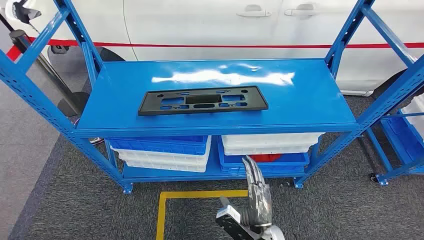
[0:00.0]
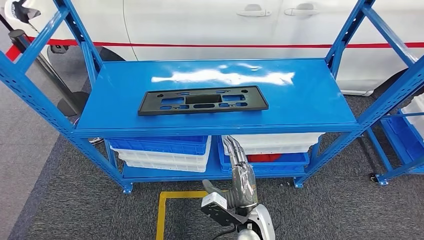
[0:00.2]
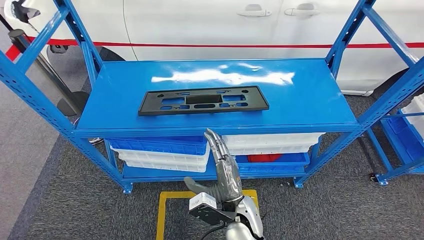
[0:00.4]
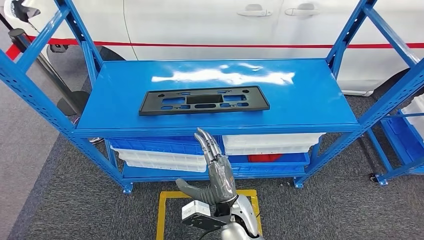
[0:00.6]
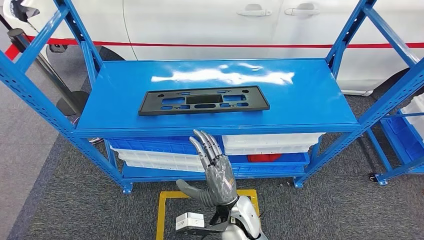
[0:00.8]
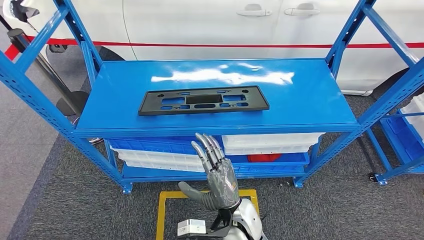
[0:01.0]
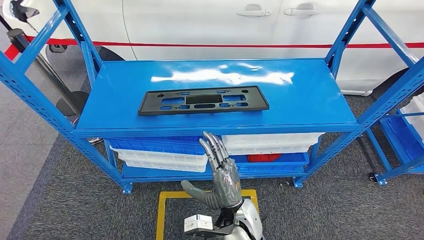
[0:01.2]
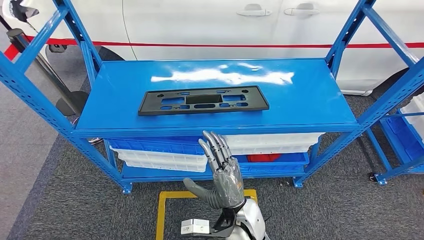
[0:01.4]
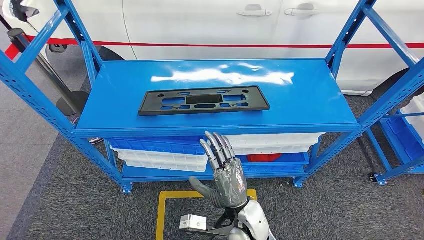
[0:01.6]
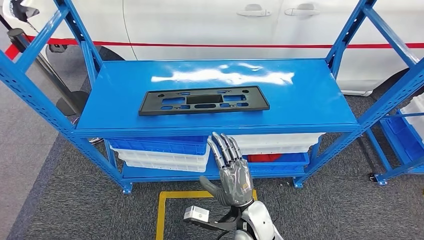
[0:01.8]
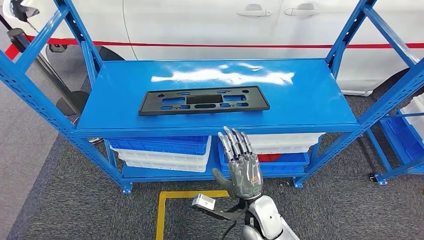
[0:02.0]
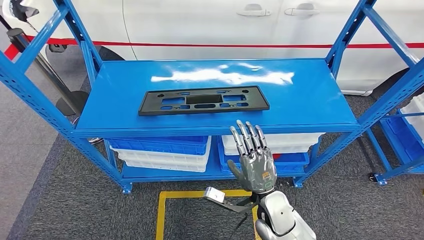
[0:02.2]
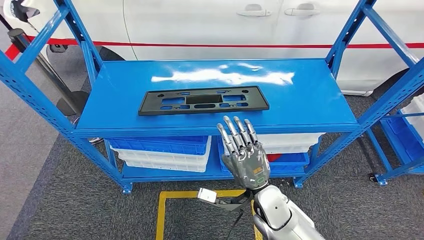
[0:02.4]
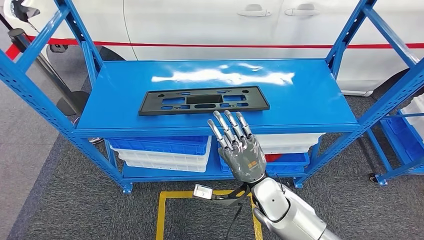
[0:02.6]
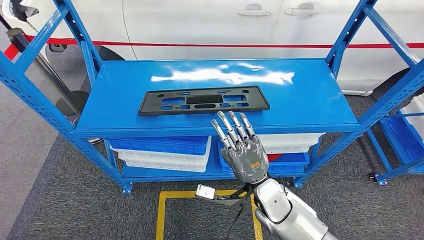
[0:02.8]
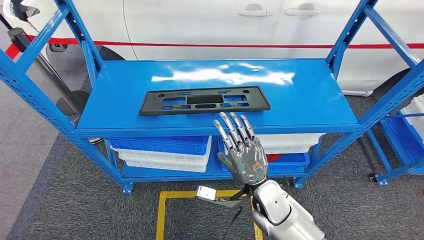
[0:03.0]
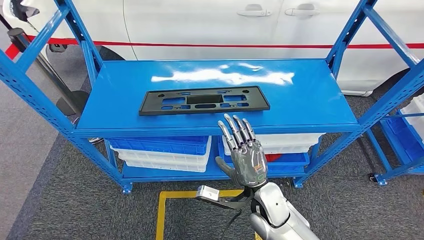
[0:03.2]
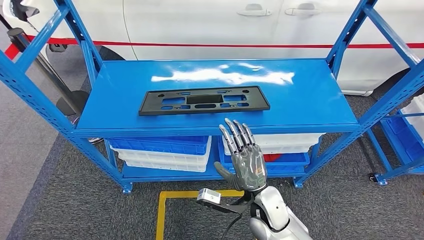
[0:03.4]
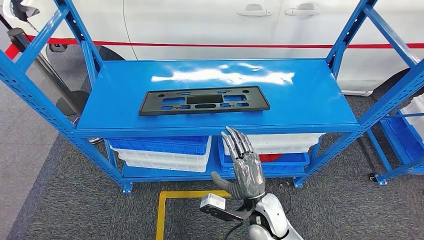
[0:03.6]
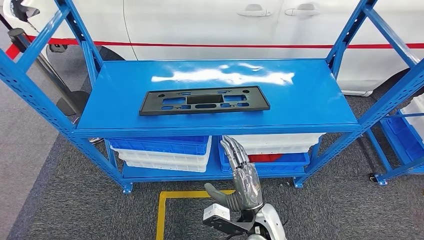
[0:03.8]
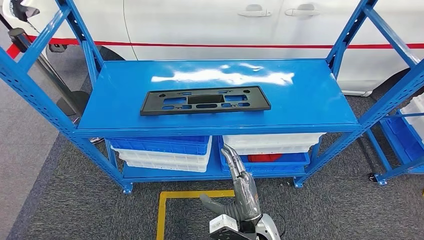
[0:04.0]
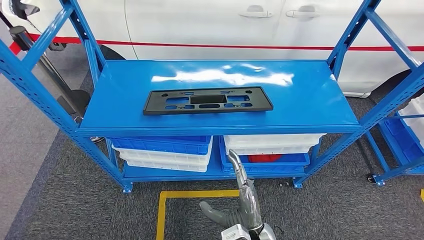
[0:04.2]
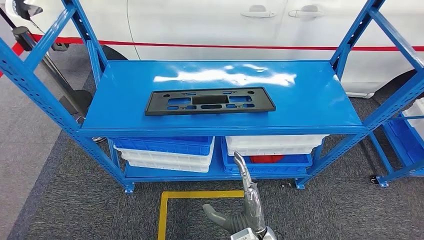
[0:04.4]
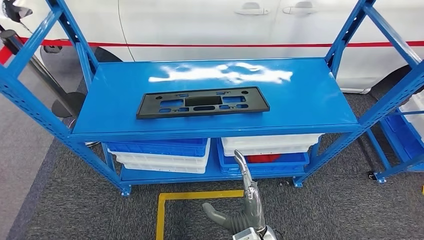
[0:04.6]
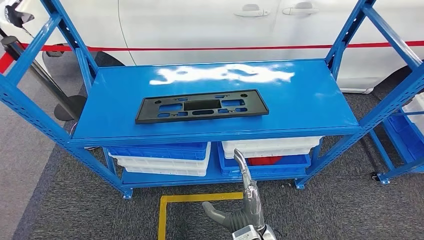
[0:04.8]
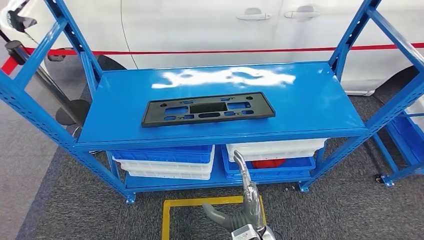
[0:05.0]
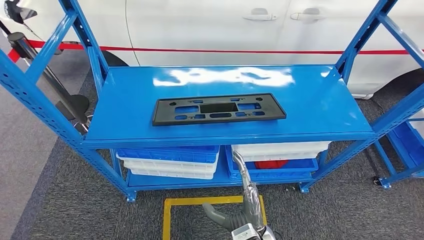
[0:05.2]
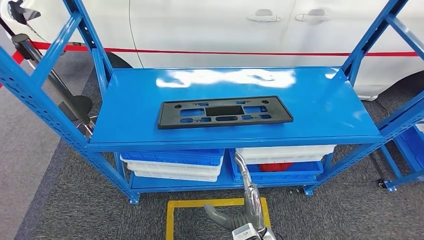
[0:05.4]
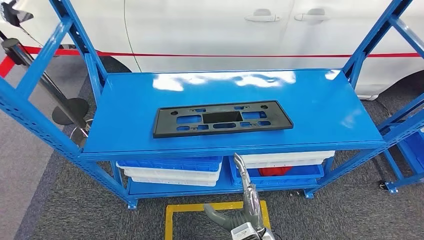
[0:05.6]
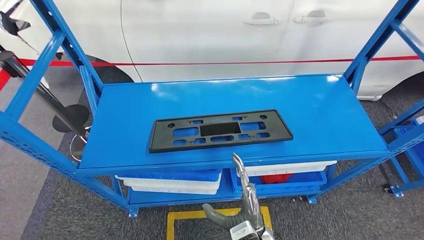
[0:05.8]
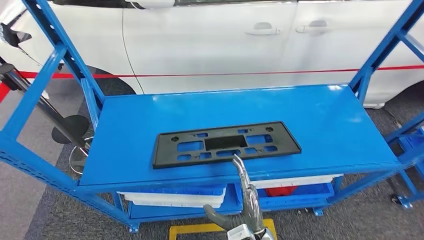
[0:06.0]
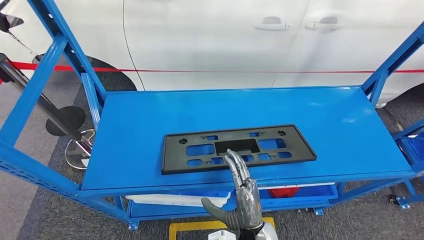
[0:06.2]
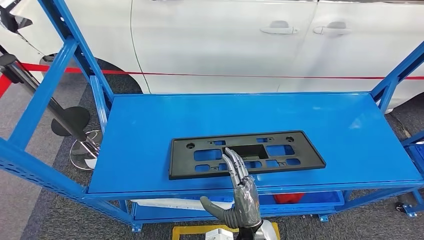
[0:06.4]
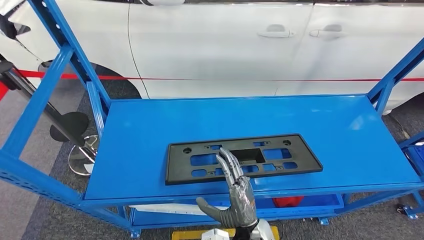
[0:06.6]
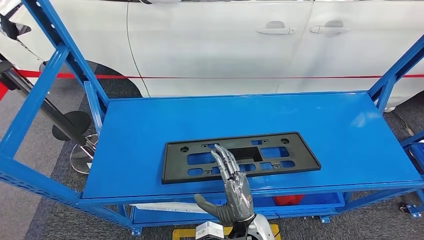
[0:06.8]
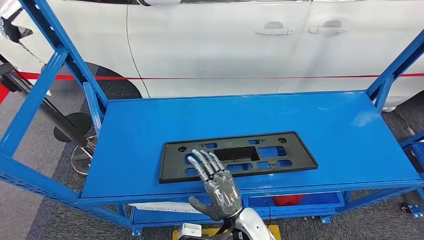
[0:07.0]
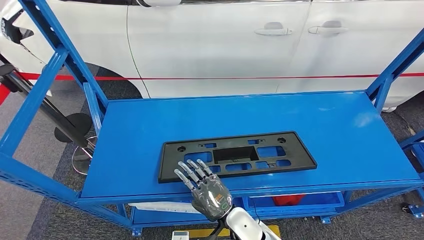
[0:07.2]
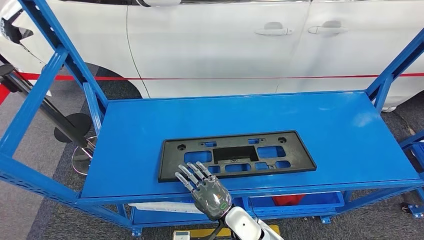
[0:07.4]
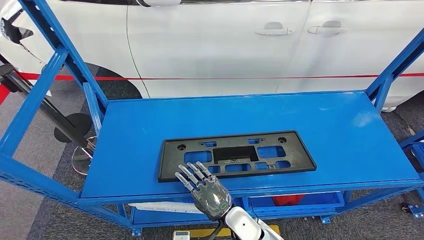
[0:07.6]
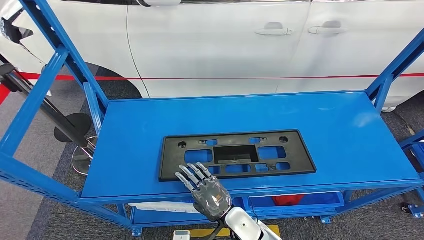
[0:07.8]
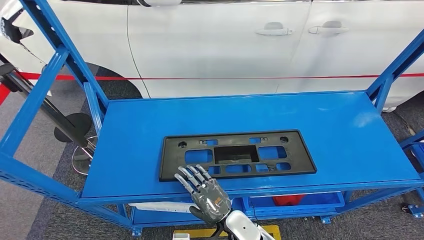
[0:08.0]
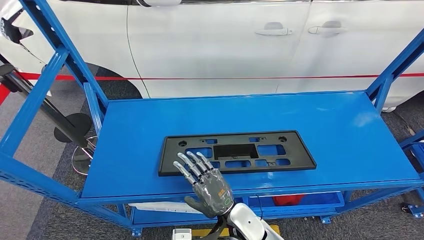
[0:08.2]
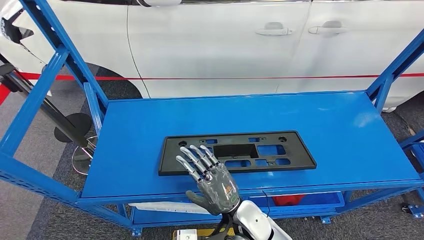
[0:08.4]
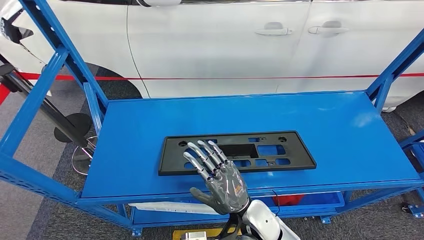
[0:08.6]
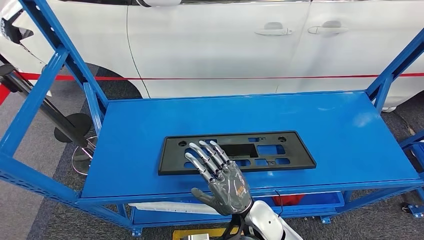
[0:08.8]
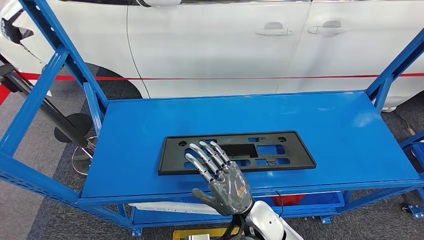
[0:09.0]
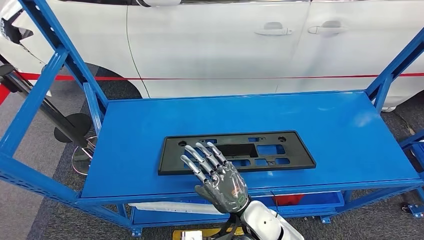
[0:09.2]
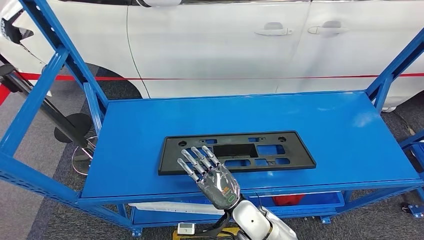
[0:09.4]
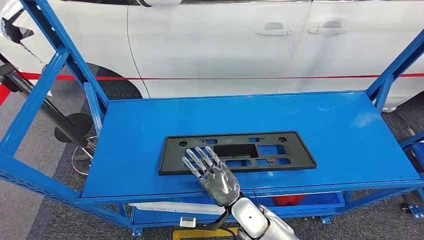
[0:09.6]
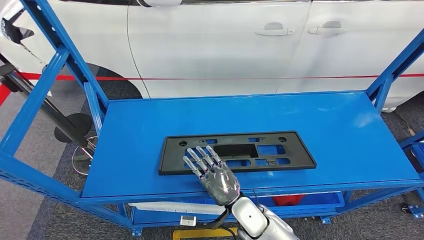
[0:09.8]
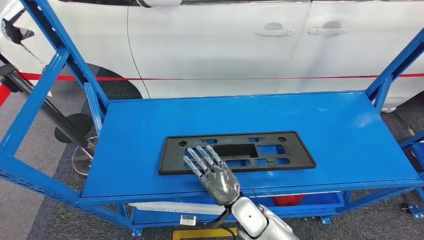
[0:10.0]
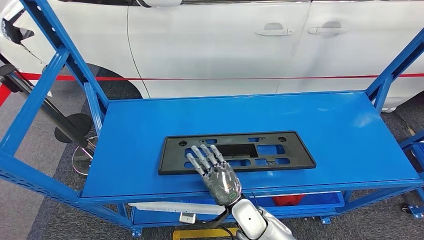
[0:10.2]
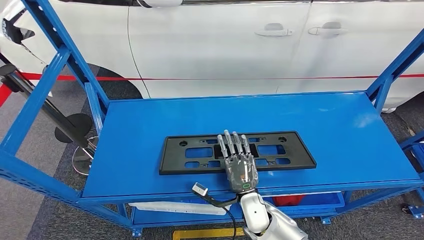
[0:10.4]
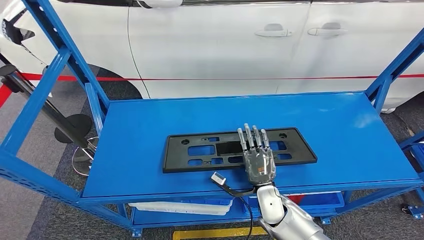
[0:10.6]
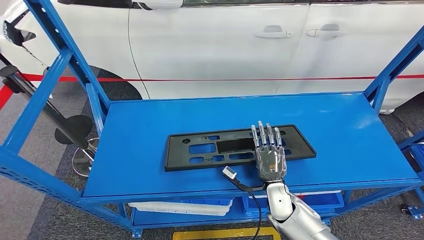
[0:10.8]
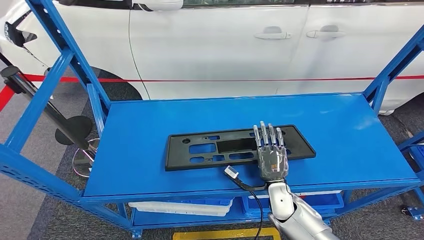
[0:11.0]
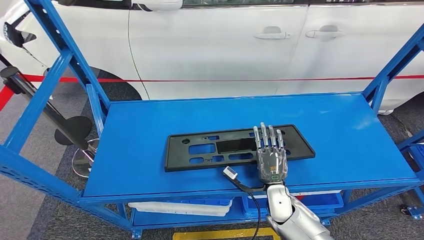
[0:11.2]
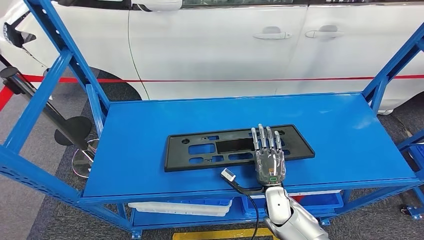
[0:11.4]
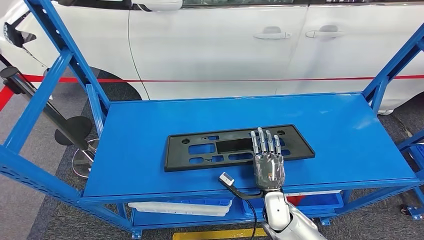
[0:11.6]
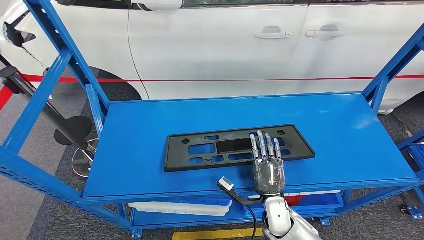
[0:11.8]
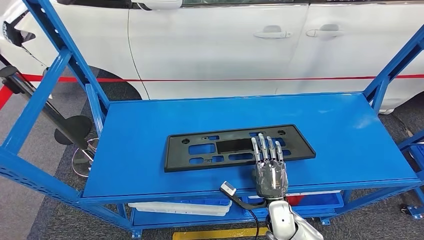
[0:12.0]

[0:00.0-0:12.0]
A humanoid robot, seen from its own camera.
0:01.6 to 0:03.0: The right hand heads to the right, covering some 5 cm.
0:03.0 to 0:04.4: The right hand shifts approximately 10 cm backward.
0:07.6 to 0:09.0: The right hand moves upward, about 10 cm.
0:09.0 to 0:10.4: The right hand shifts some 5 cm downward.
0:10.4 to 0:12.0: The right hand heads to the right, covering some 5 cm.

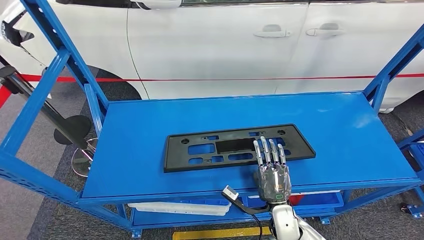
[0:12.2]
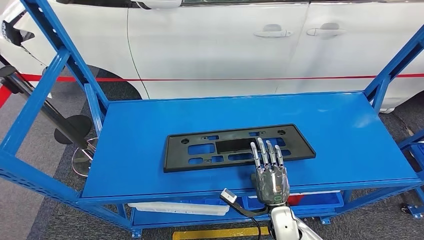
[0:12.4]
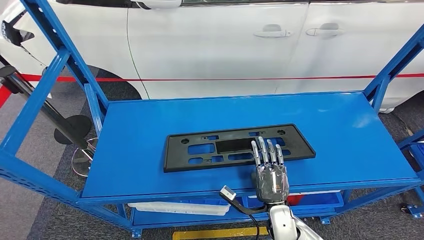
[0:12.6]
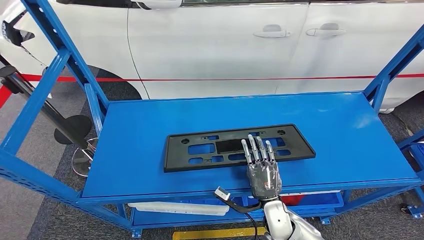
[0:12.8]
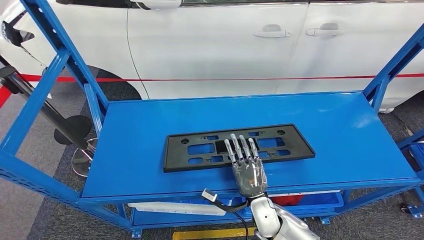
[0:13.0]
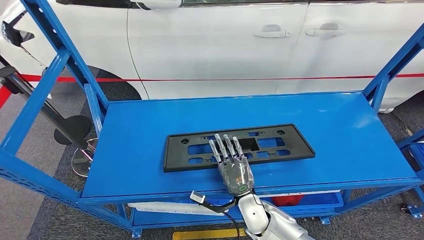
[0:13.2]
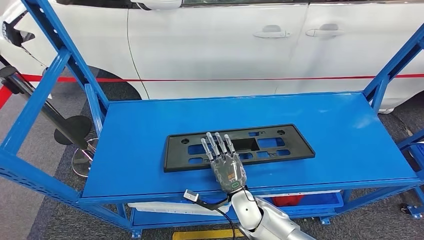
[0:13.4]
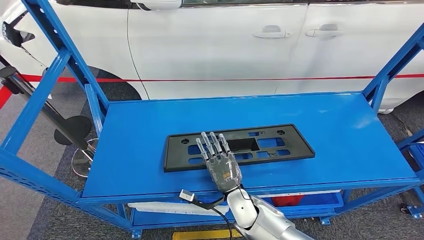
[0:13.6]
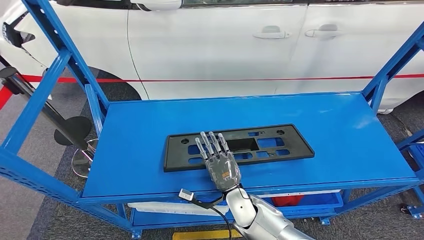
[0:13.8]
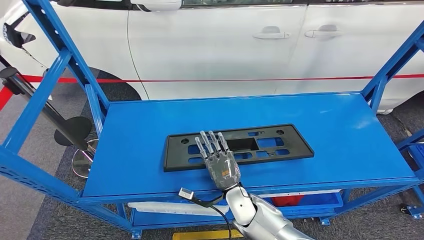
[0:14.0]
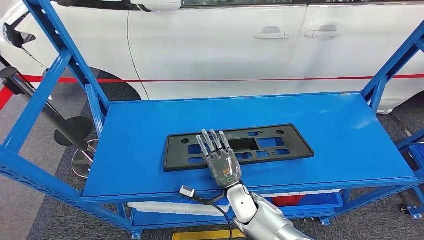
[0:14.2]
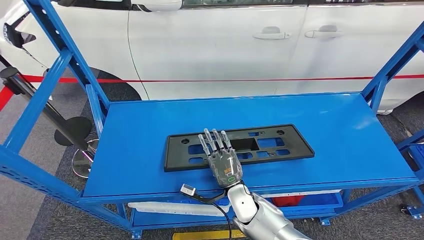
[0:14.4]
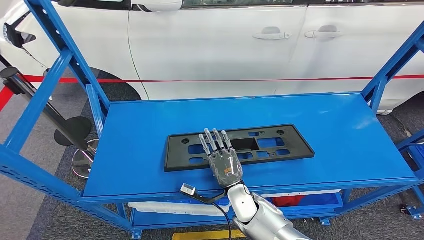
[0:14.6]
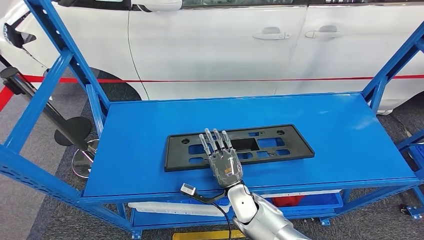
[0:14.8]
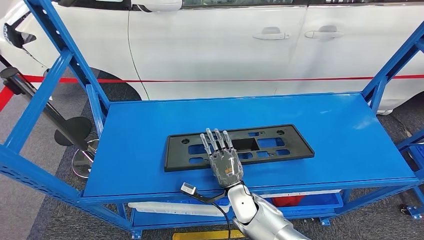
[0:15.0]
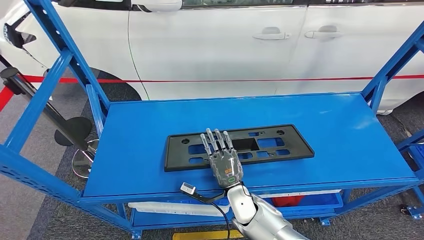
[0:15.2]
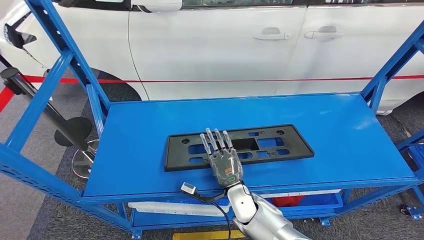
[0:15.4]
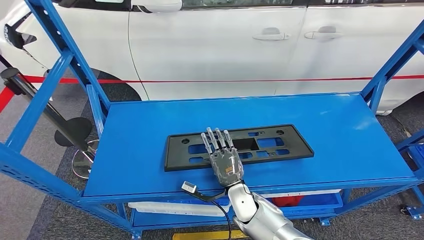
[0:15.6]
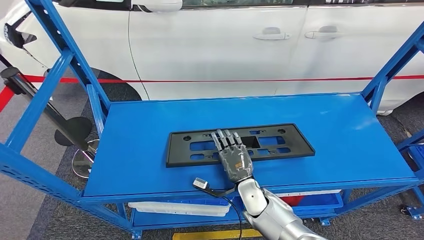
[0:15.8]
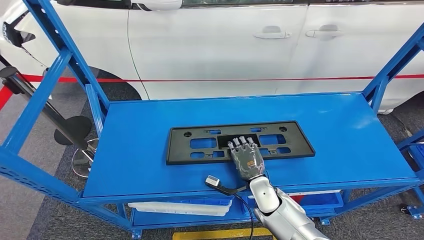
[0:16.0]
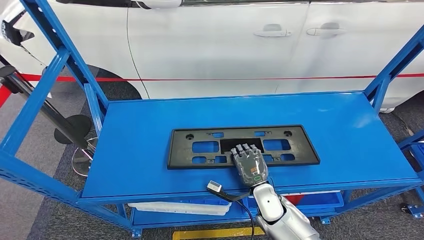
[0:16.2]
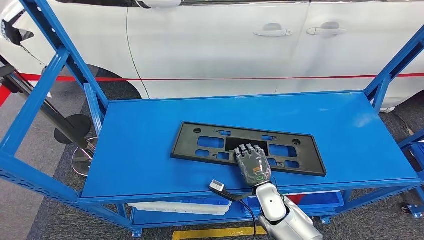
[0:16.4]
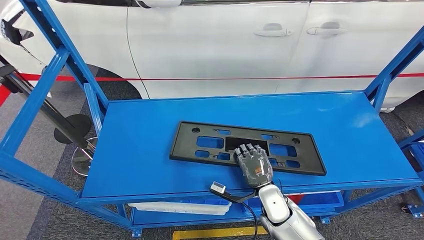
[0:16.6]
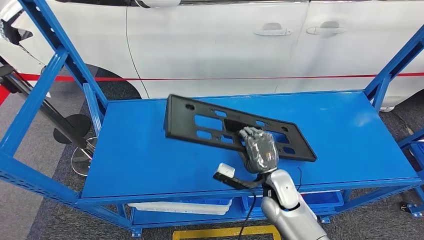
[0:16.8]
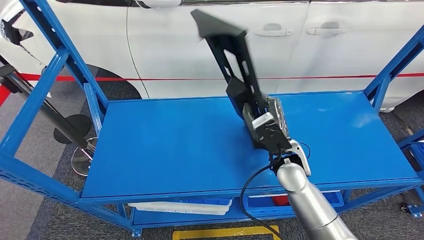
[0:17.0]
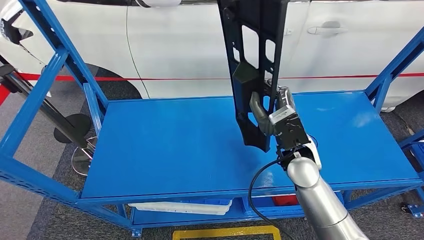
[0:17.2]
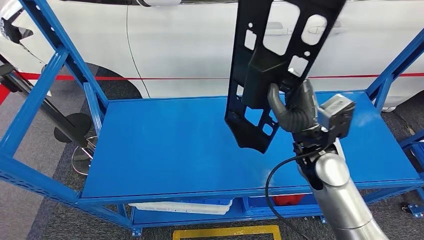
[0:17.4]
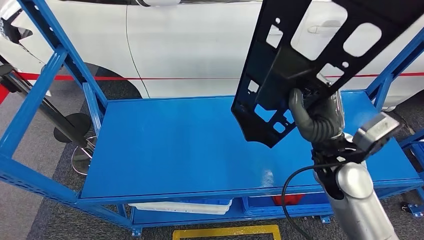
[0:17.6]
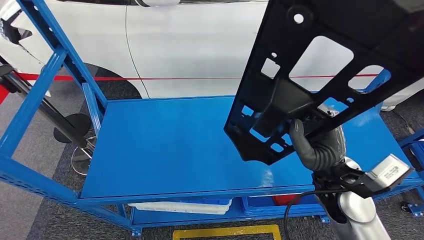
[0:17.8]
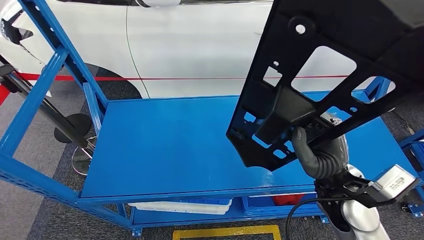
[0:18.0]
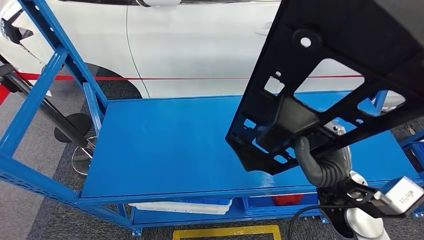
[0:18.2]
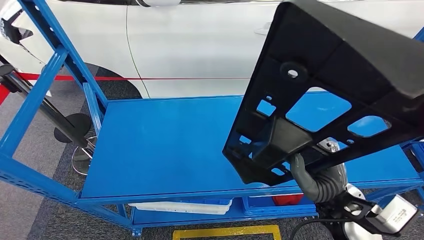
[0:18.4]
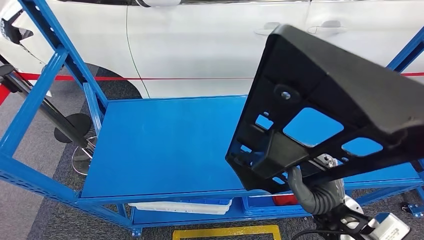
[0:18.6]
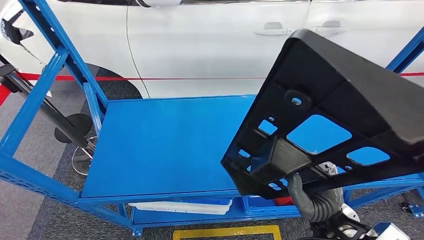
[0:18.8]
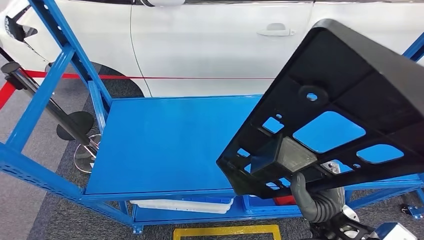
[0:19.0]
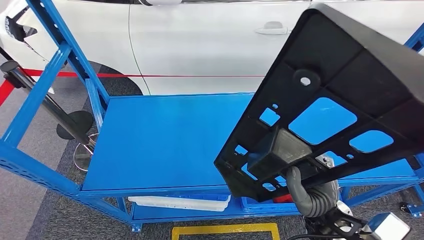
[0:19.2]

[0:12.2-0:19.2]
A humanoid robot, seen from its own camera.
0:12.2 to 0:13.6: The right hand shifts approximately 10 cm to the left.
0:13.6 to 0:15.0: The hands move only a little.
0:15.0 to 0:16.4: The right hand heads to the right, covering approximately 5 cm.
